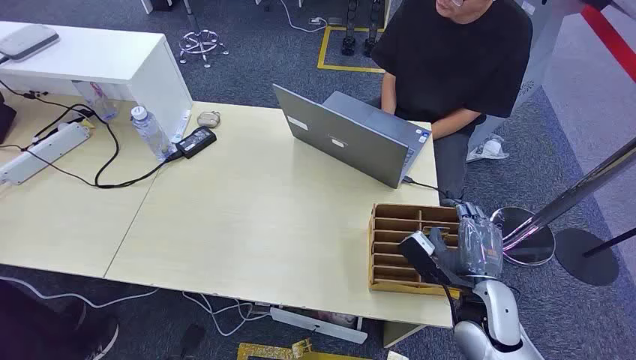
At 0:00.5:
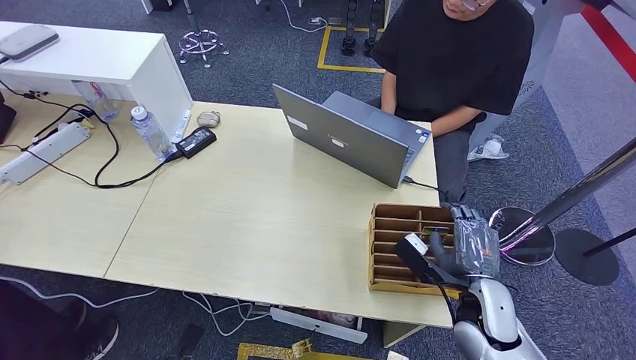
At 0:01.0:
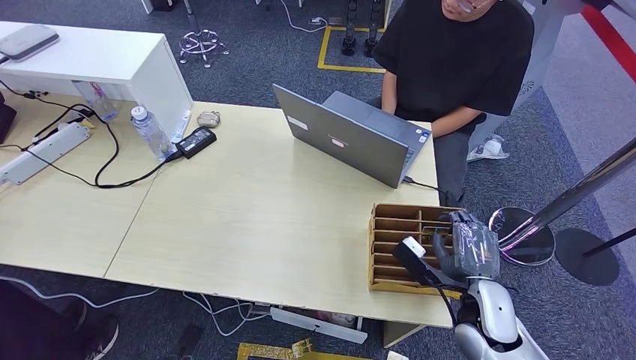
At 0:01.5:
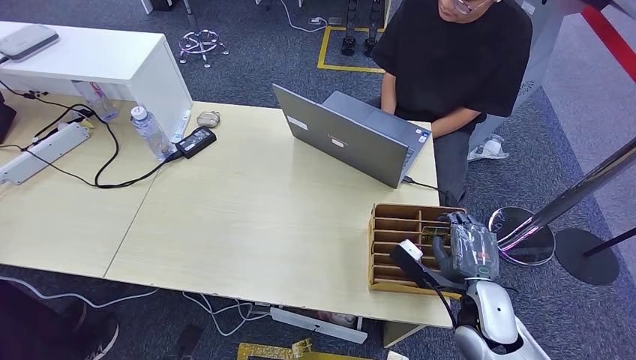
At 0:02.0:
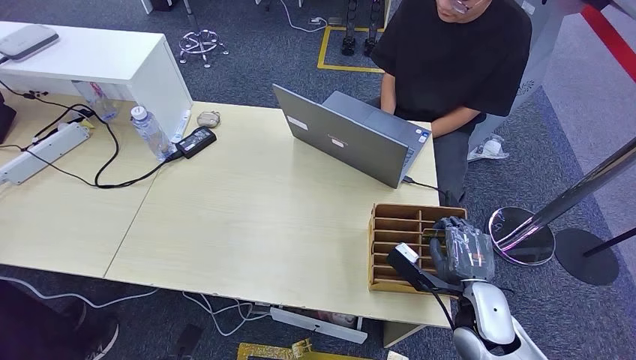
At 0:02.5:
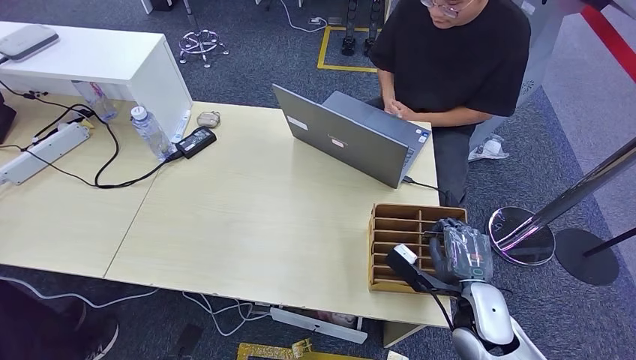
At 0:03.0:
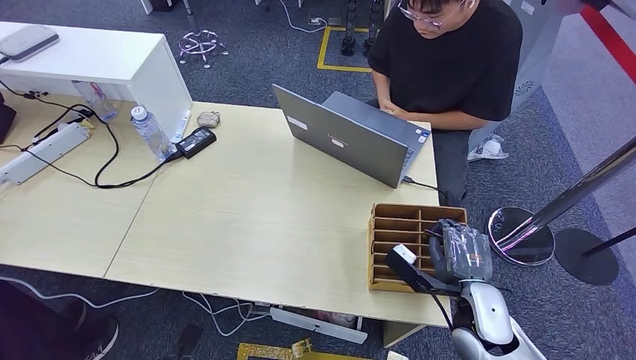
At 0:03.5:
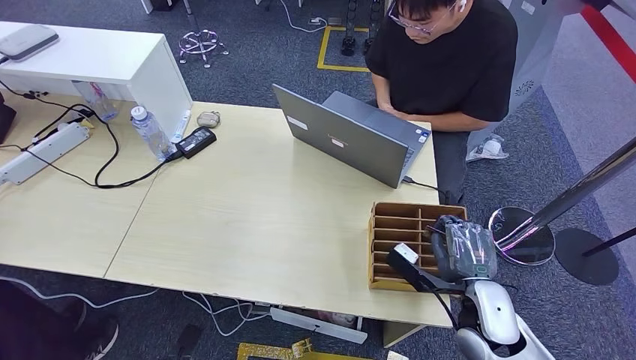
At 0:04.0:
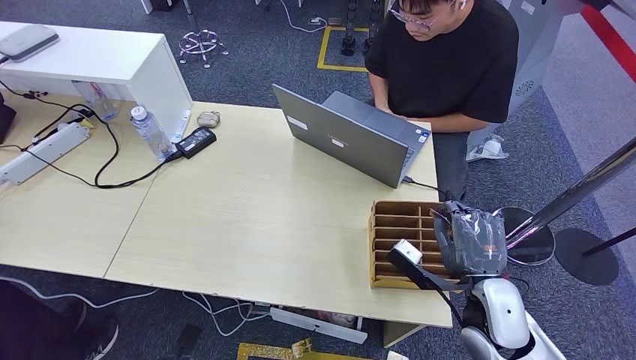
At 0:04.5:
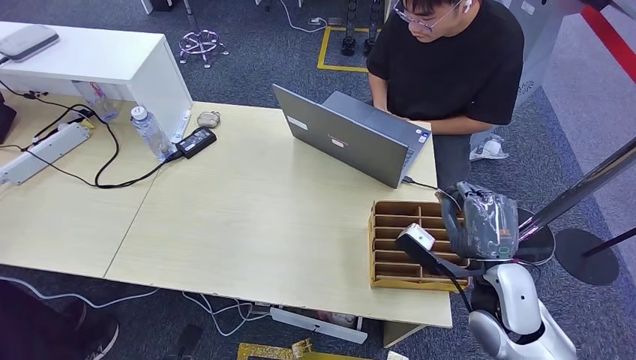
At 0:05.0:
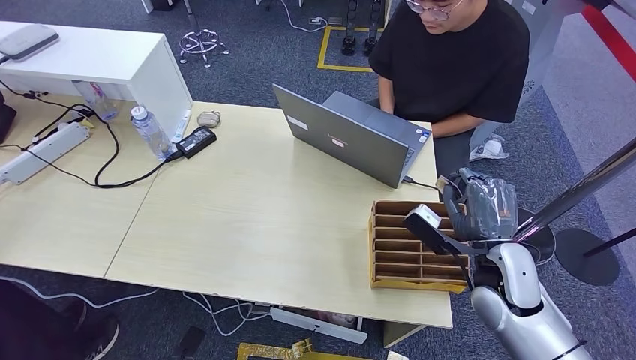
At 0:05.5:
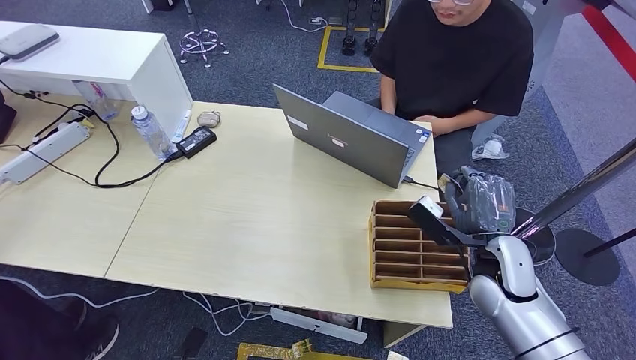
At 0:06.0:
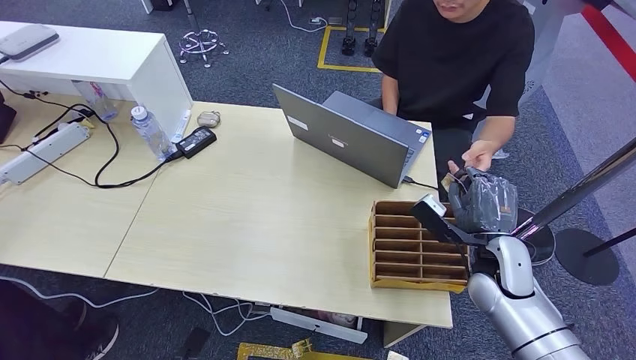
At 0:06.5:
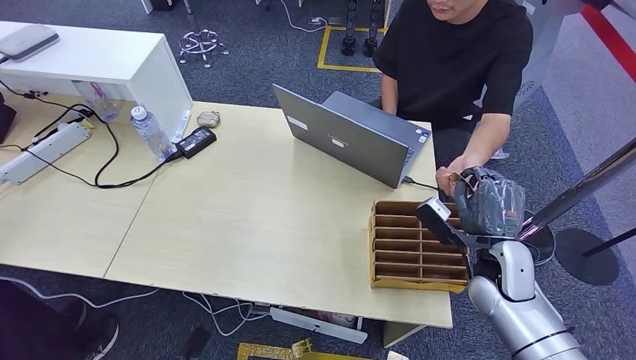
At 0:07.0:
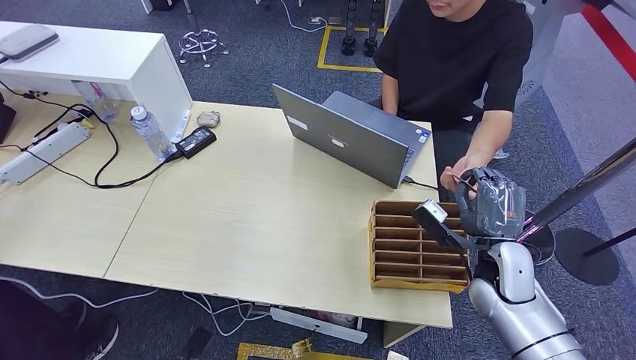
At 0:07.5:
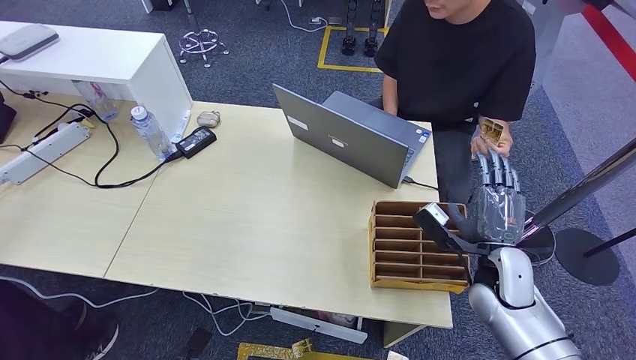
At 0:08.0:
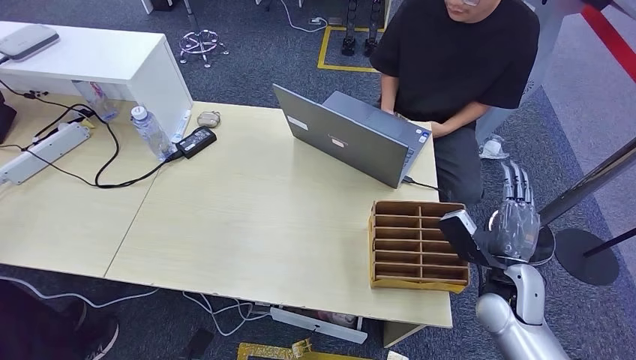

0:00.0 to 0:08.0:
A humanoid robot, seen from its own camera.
Step, 0:00.0 to 0:05.0: Pick up the key card from the card box.
Step, 0:05.5 to 0:08.0: Hand the key card to the target.
0:02.0 to 0:04.0: The hands stay close to where they were, moving slightly.
0:04.0 to 0:06.0: The right hand travels forward by approximately 10 cm.
0:06.0 to 0:08.0: There are only small adjustments of the hands.
